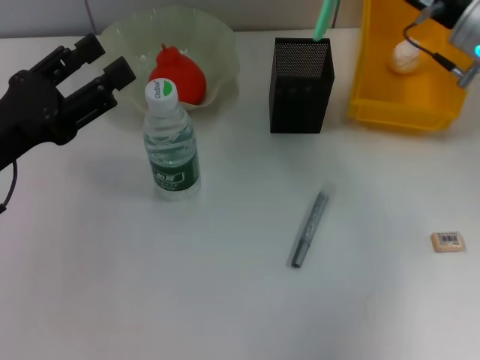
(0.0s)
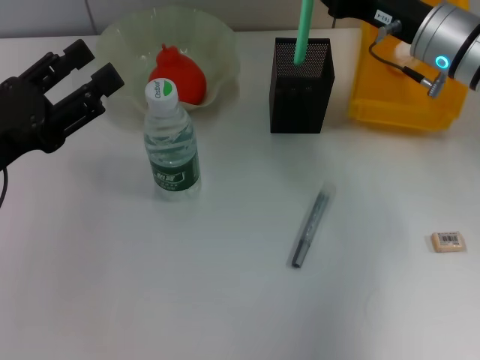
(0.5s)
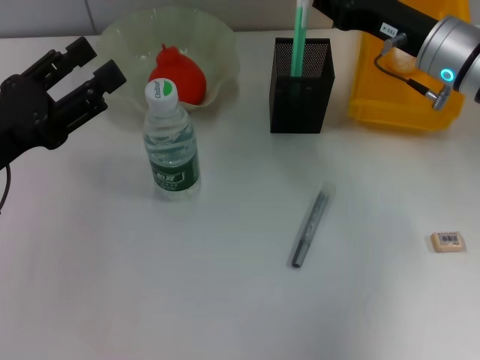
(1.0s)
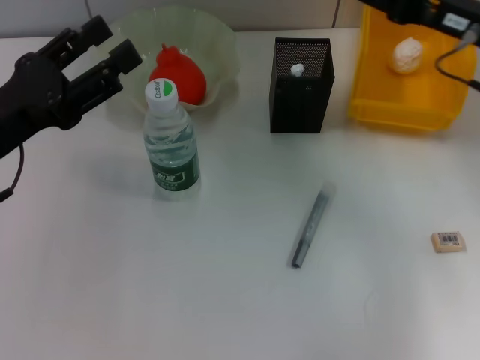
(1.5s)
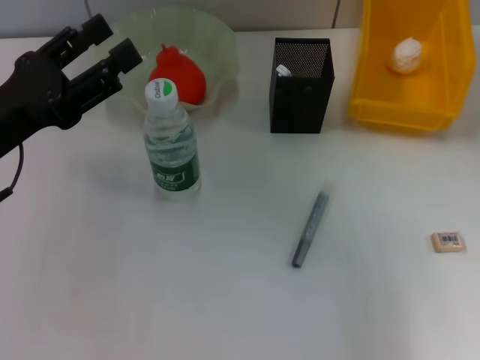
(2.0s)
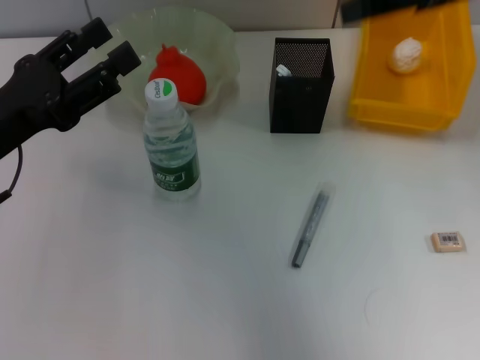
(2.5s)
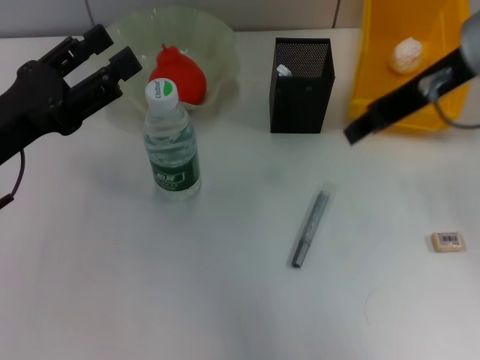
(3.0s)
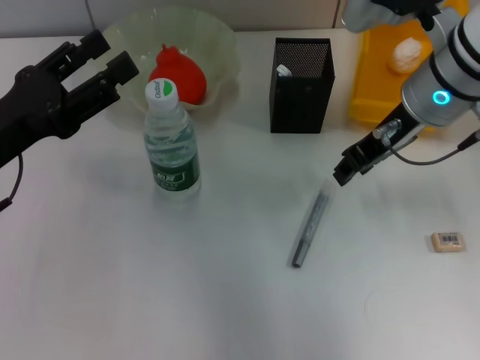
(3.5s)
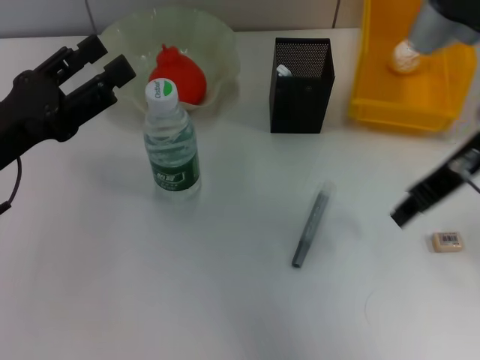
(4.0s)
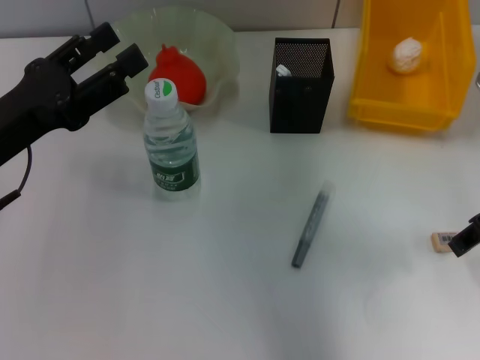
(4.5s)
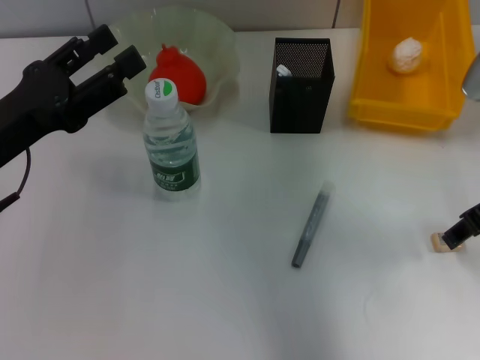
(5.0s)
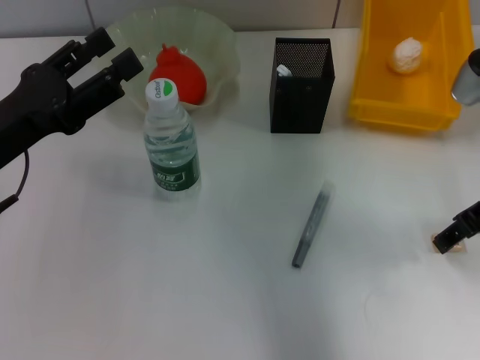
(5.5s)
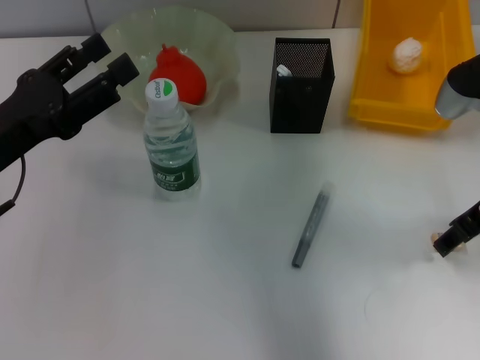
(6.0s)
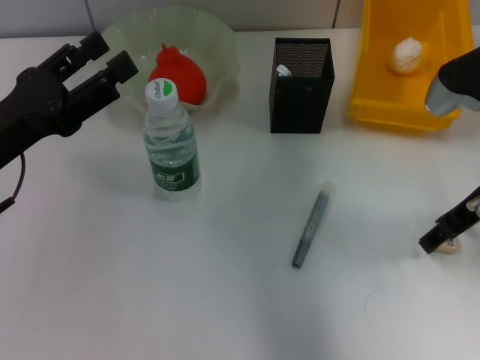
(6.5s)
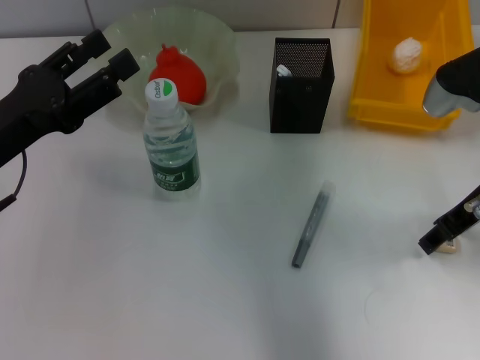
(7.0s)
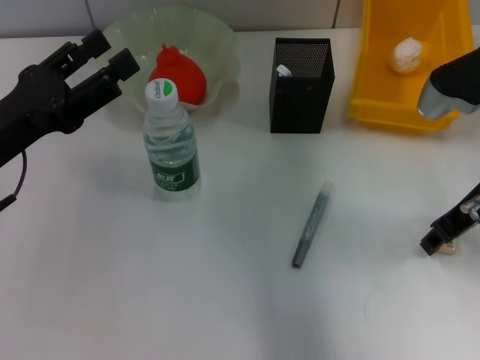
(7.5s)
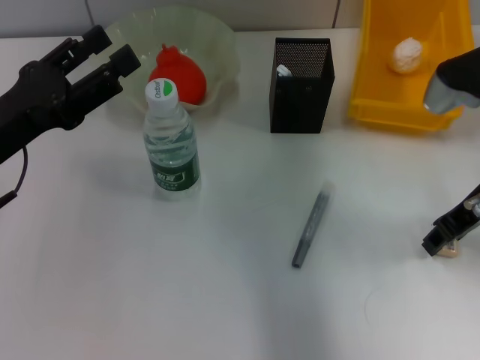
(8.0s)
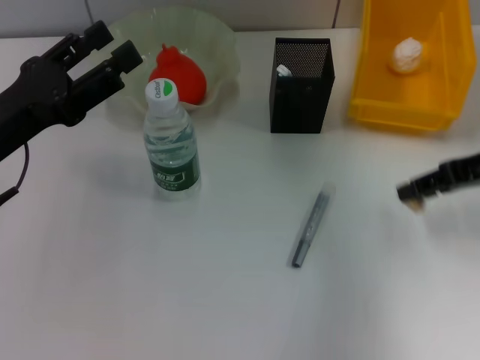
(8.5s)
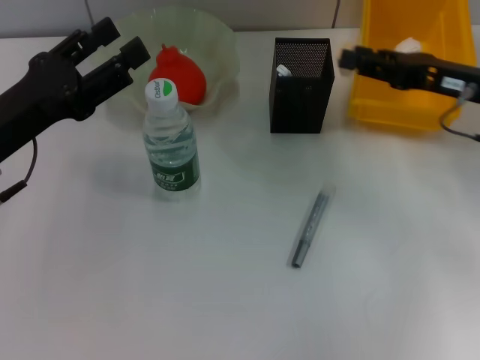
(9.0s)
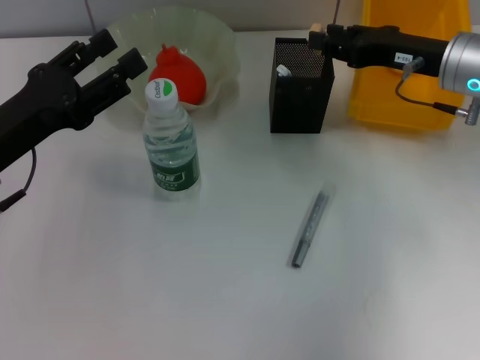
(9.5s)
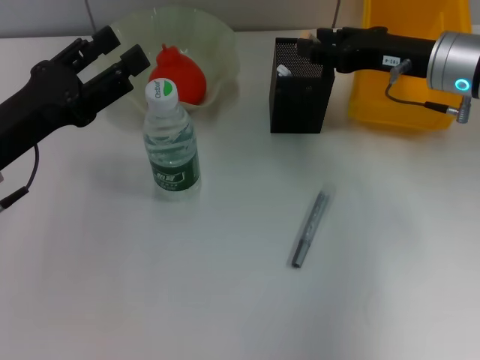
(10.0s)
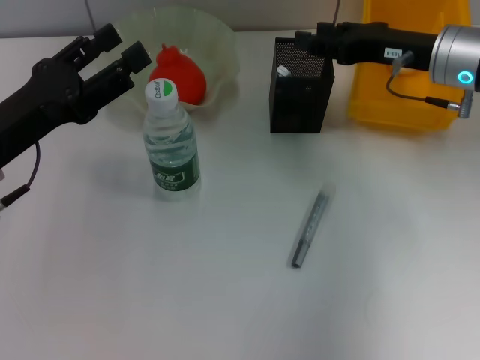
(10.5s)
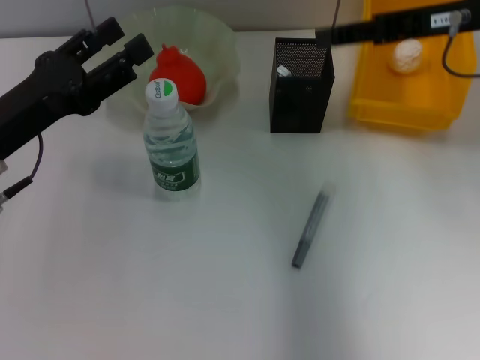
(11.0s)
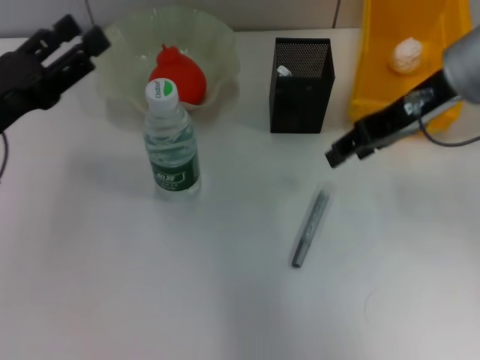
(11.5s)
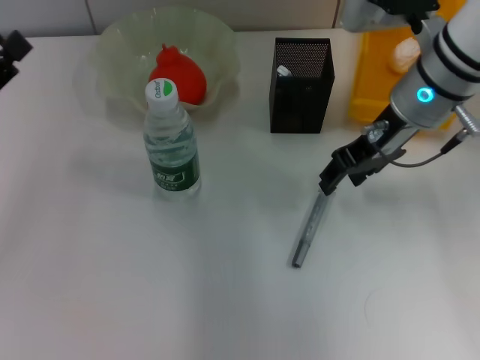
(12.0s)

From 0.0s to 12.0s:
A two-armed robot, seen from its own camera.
Step, from 2.0s to 7.5s: Grab the eraser with the right hand.
Step, from 8.0s to 10.0s: Put the eraser into the pen holder with the right hand.
From 0.0s to 2.0s: The right gripper is displaced upward, backward and to the right by about 15 cm.
From 2.0s to 4.0s: The right gripper travels to the left and downward by roughly 10 cm.
From 4.0s to 6.0s: The right gripper goes some 5 cm downward, and opens.
From 6.0s to 8.0s: The right gripper closes.
From 8.0s to 10.0s: The right gripper travels forward by approximately 5 cm.
From 10.0s to 12.0s: The grippers both shift to the left by approximately 5 cm.

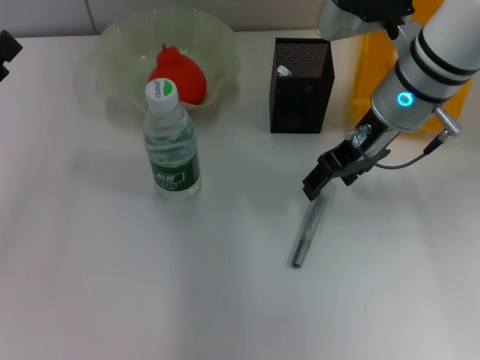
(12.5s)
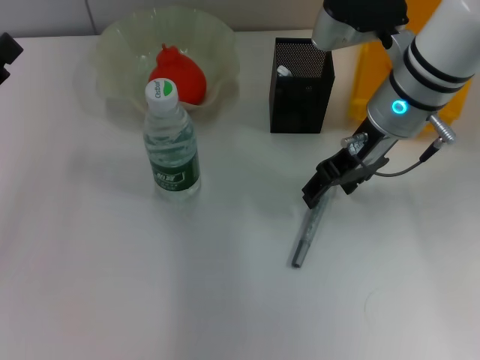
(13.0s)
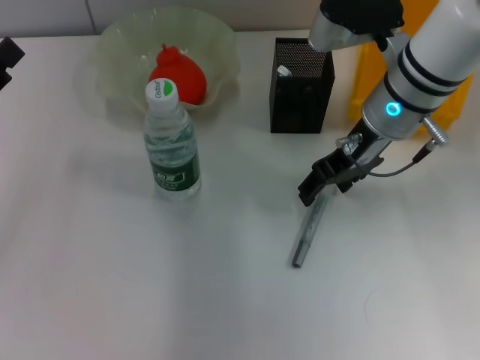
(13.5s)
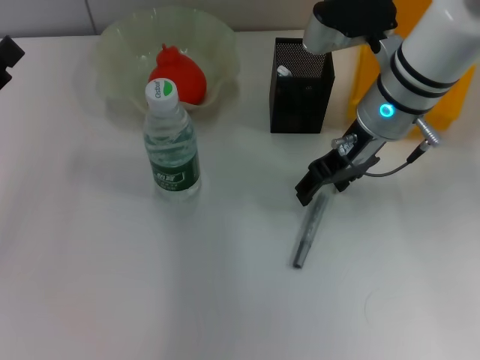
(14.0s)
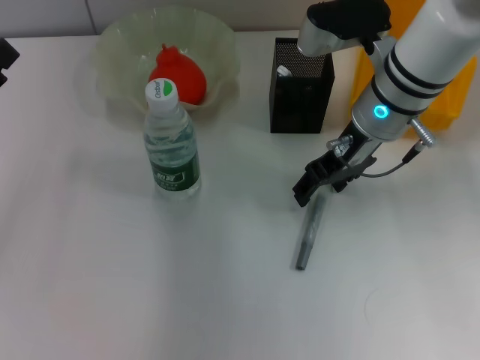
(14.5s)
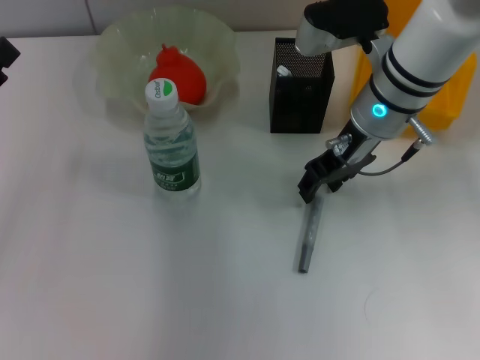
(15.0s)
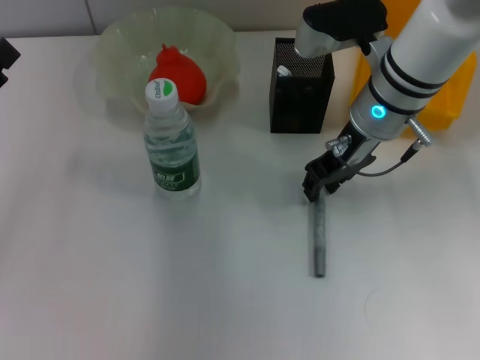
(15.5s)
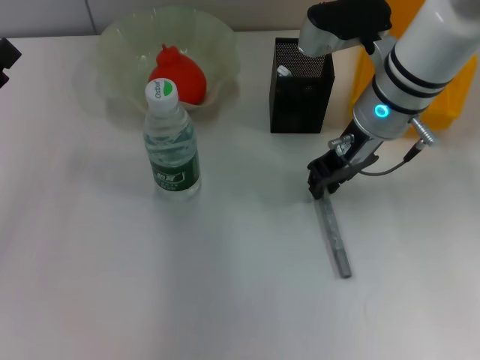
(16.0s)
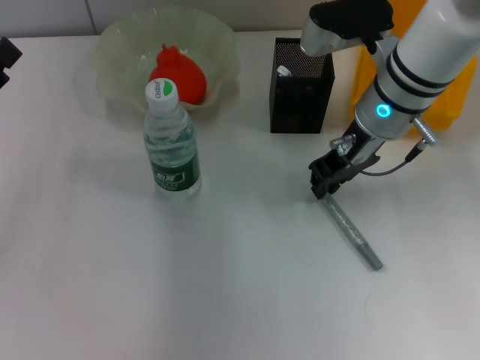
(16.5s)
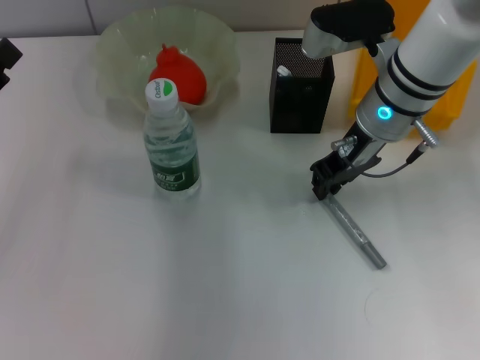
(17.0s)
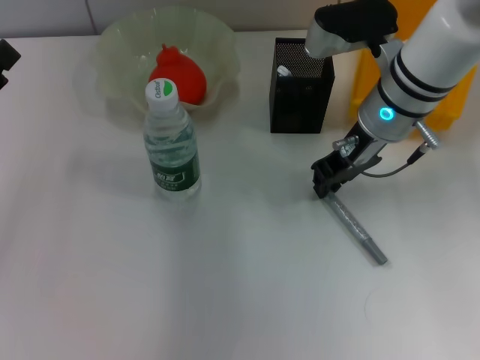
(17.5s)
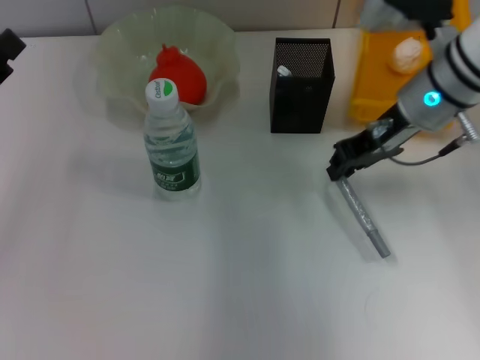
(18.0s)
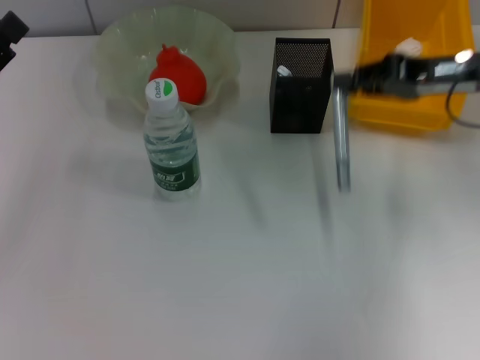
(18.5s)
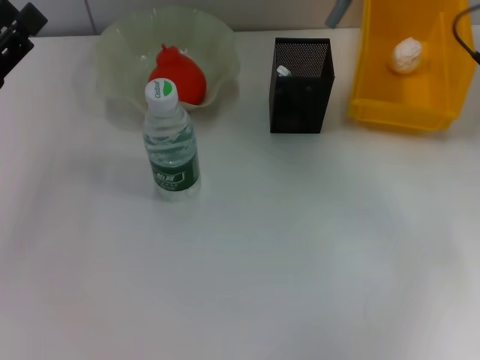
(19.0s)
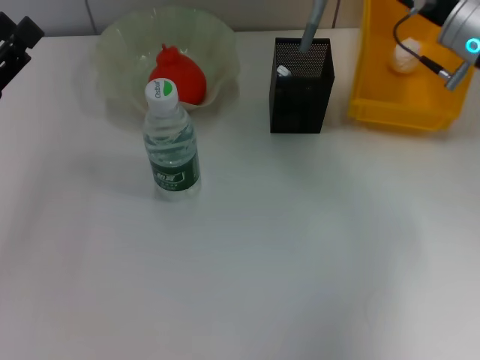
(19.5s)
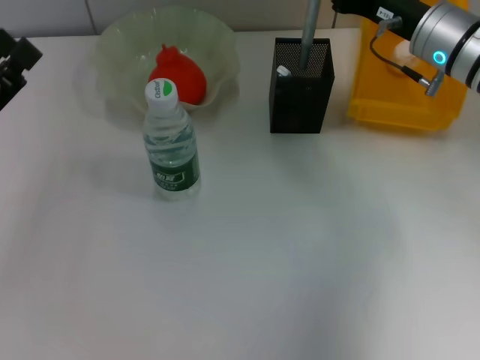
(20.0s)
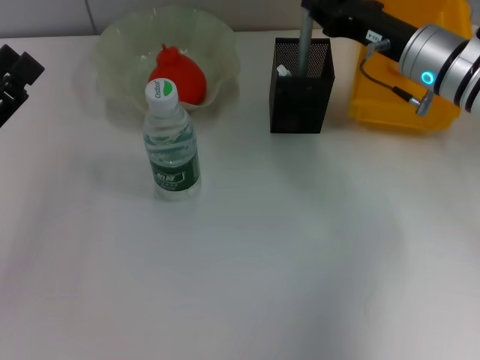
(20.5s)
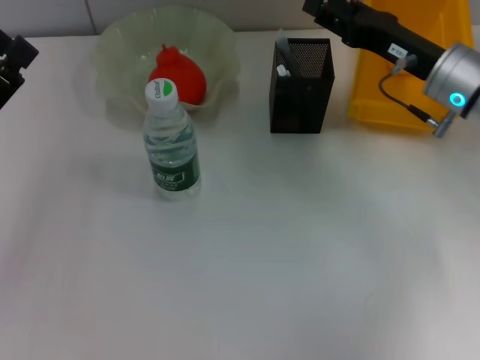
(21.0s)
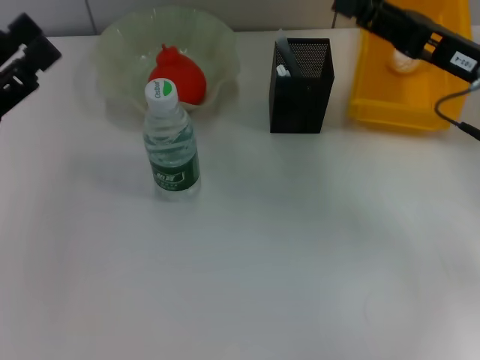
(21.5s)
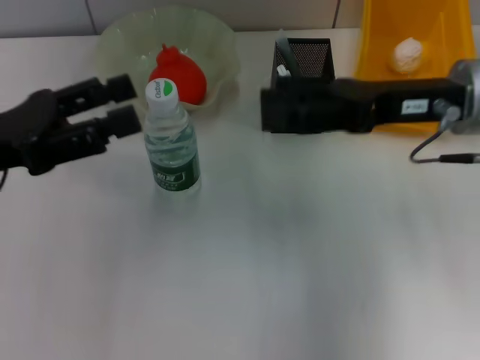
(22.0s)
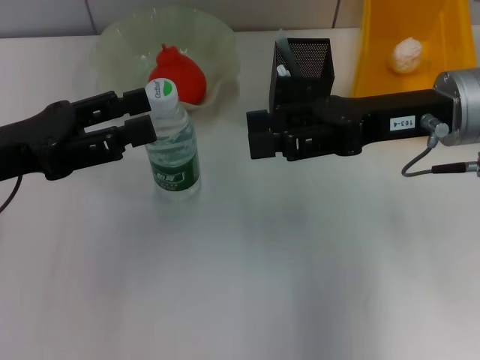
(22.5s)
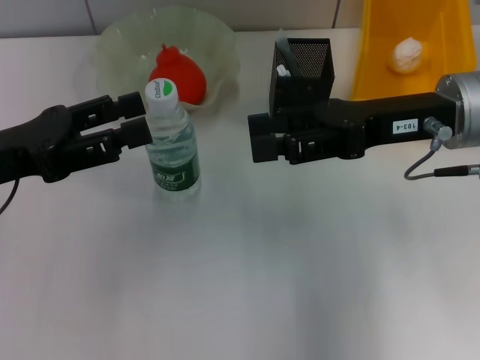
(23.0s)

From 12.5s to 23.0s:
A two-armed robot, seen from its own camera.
Step, from 12.5s to 17.0s: Grab the gray glue with the right hand.
Step, from 17.5s to 20.5s: Place the gray glue into the pen holder with the right hand.
From 12.5s to 14.5s: The grippers make only small movements.
From 14.5s to 16.5s: The right gripper closes.
From 16.5s to 19.0s: The right gripper travels to the right by approximately 15 cm.
From 19.0s to 21.0s: The right gripper moves downward, roughly 5 cm, and opens.
From 21.0s to 23.0s: The left gripper shifts by some 5 cm, while the right gripper is displaced upward by roughly 5 cm, and opens.
